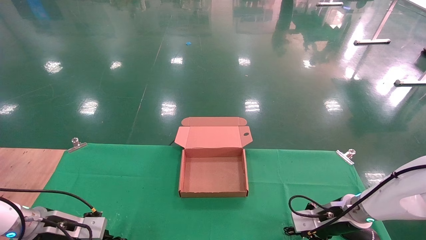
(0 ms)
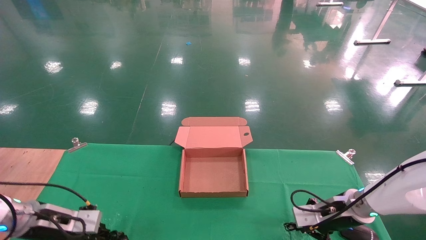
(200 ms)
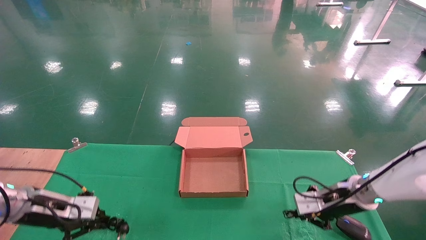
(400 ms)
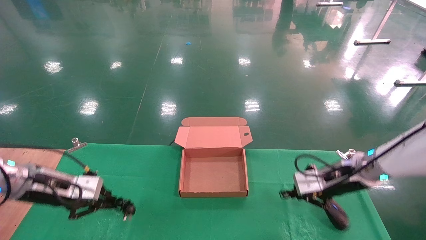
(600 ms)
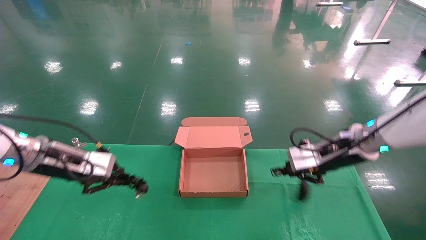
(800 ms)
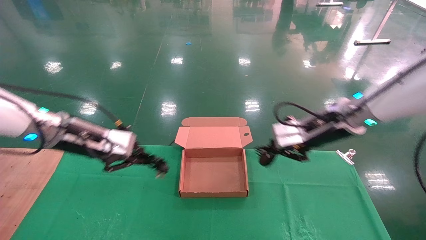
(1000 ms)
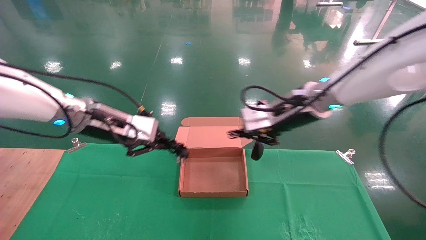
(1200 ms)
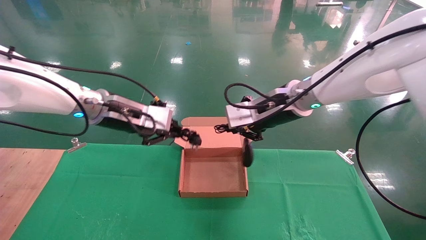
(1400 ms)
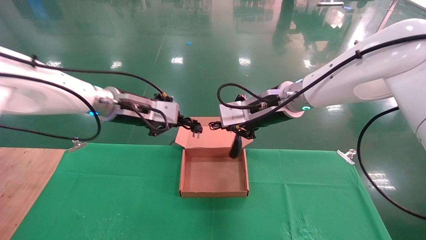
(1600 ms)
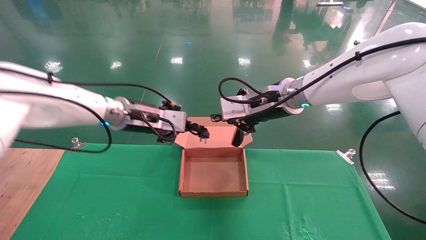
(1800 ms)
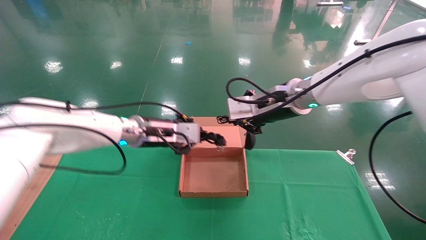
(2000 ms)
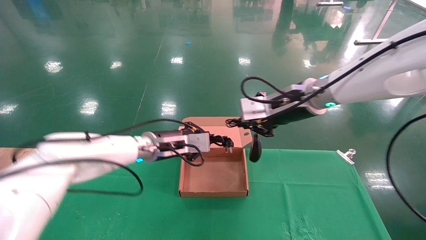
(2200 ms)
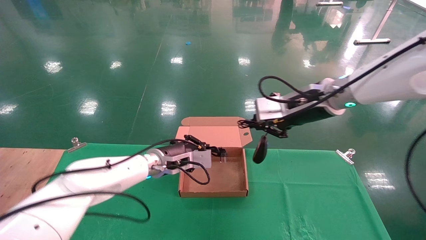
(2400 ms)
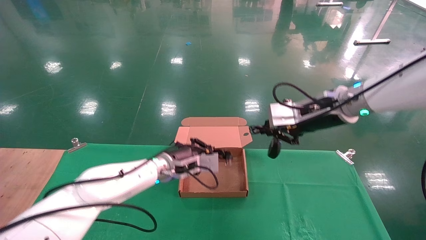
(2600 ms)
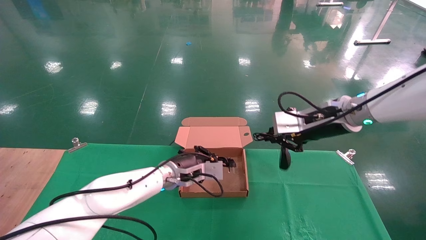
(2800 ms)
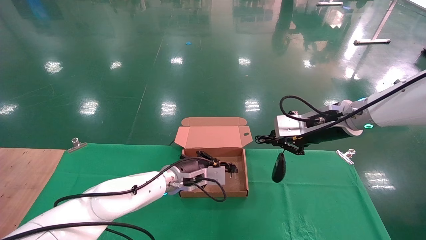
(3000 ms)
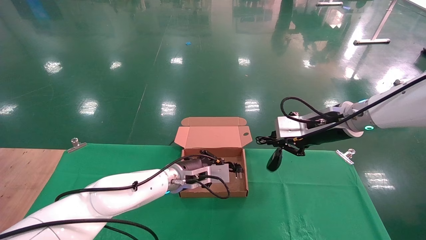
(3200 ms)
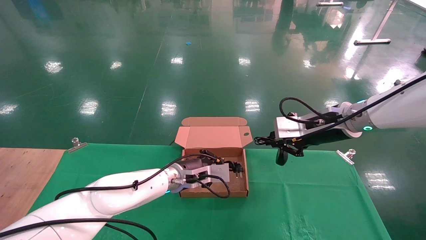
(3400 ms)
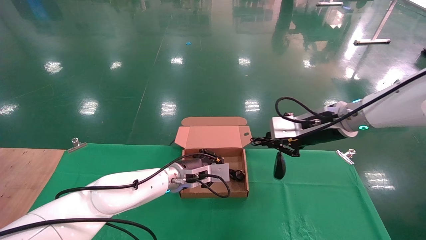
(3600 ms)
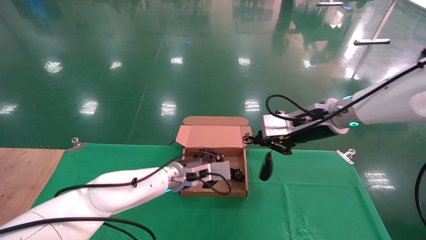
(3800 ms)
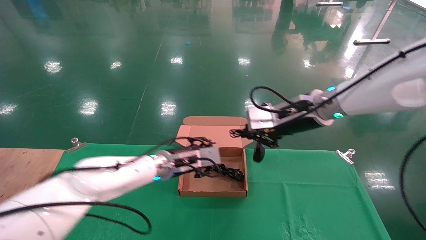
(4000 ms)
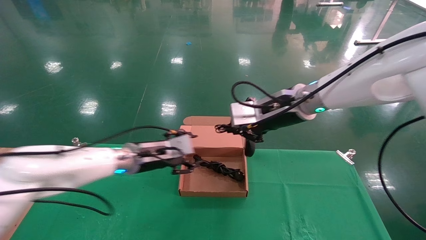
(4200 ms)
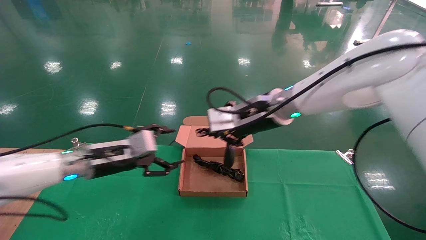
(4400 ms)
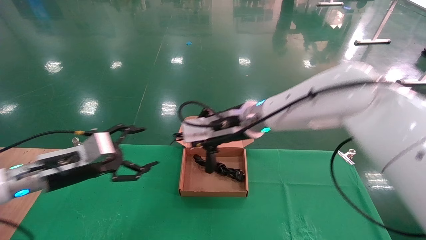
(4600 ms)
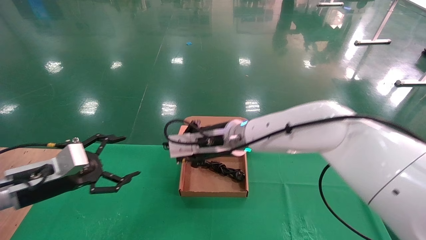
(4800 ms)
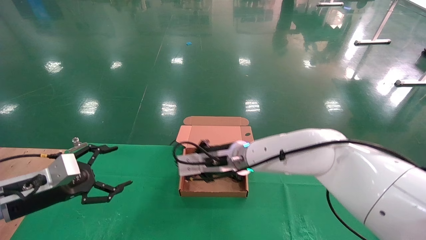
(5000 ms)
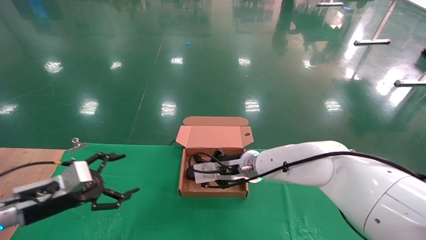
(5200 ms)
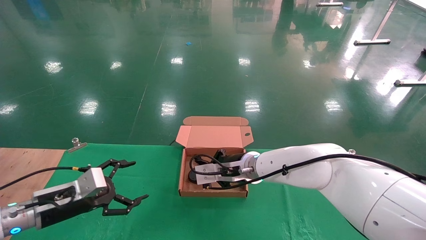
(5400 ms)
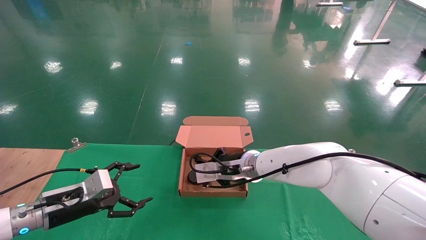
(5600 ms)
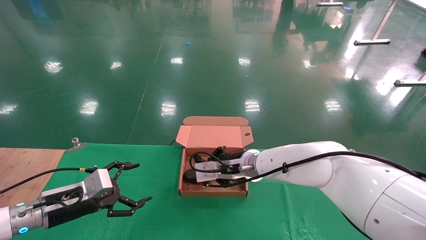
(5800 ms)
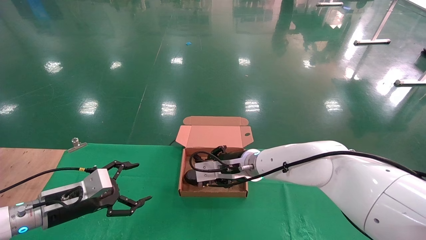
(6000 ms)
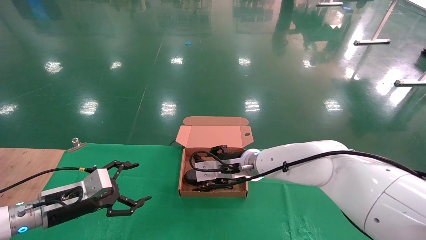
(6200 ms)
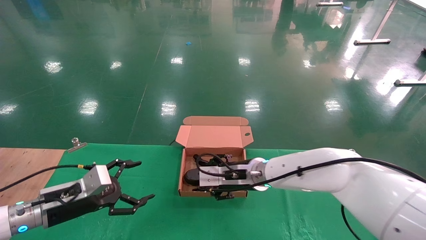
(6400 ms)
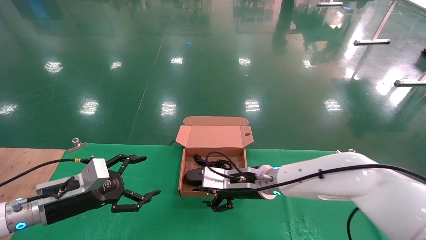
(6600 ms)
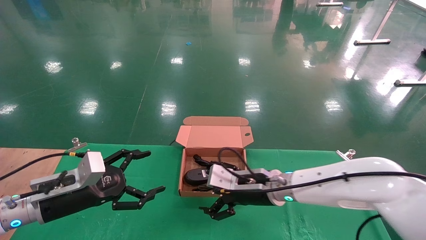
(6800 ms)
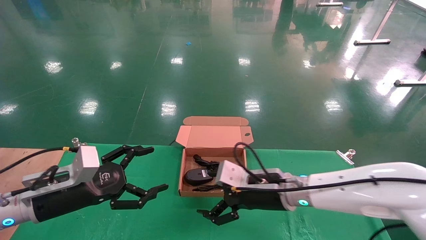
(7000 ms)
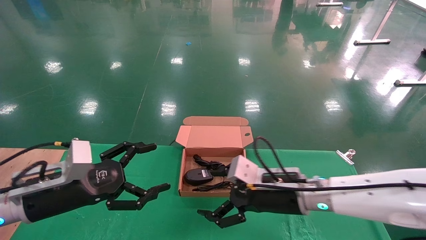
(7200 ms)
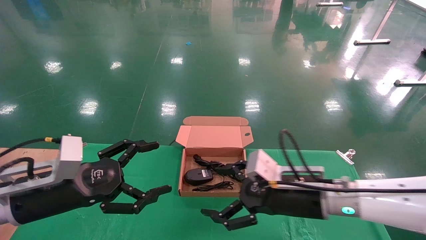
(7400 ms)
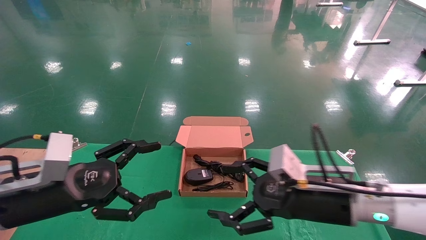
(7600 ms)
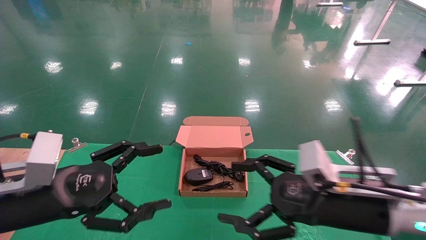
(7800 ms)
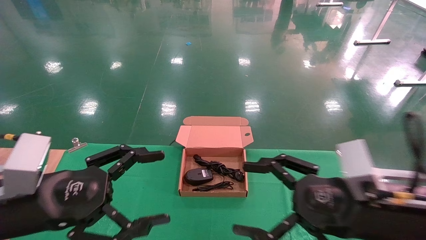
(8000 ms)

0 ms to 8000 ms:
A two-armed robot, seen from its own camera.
Step, 1200 ms to 6600 ms: Place the mouse and power cord into the box.
0 ms to 1600 ms: The left gripper travels upward and to the right by approximately 30 cm. Meanwhile the right gripper shifts roughly 30 cm upward and to the left.
1600 ms to 3200 ms: The left gripper heads downward and to the right, covering some 20 cm; the right gripper shifts some 10 cm to the right.
3200 ms to 4800 ms: The right gripper is displaced to the left by some 20 cm; the left gripper travels to the left and backward by roughly 30 cm, and opens up.
4800 ms to 6400 ms: The right gripper travels downward by some 10 cm, and opens its fingers. The left gripper moves roughly 5 cm.
6400 ms to 8000 ms: The right gripper travels backward and to the right by roughly 25 cm, and opens up; the left gripper shifts about 20 cm backward, upward and to the right.
